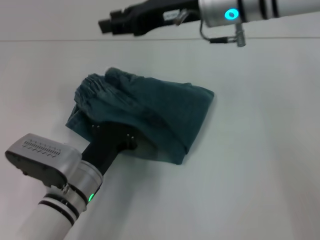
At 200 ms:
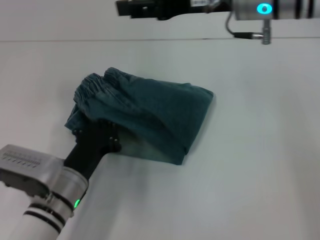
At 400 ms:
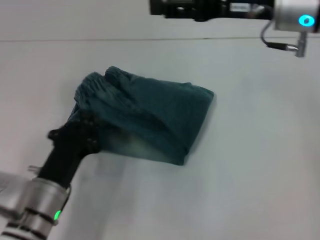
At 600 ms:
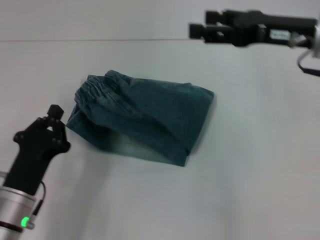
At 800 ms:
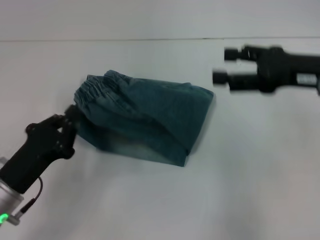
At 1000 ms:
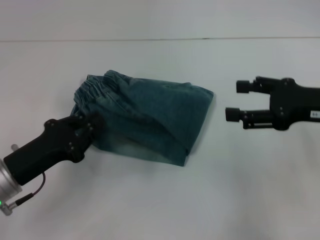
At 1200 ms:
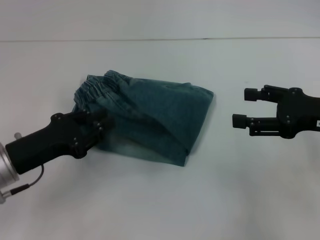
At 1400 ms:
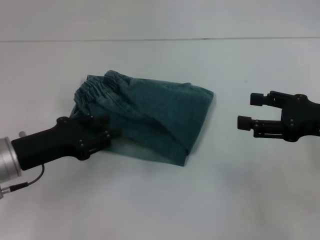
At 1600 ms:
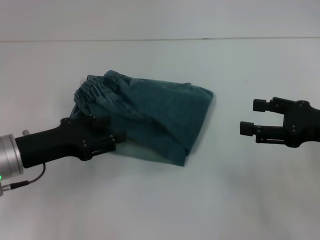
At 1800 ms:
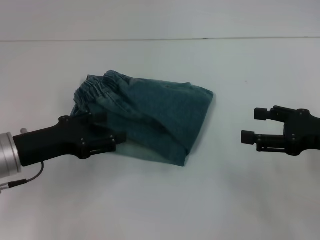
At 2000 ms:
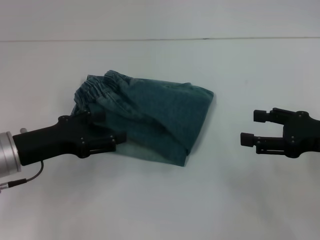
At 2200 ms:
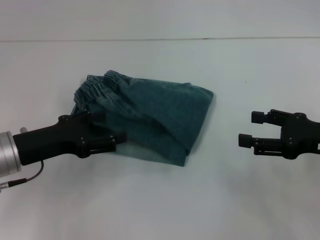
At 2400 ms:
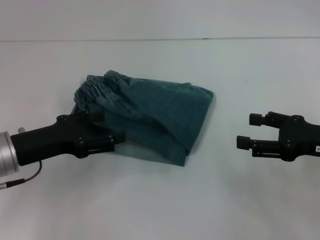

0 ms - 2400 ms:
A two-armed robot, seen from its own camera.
0 ms - 1200 ms: The right gripper travels to the right, backward and downward by some 25 cm, and opens its fingers, while the left gripper shifts some 15 cm to the left and upward.
1200 ms - 2400 ms: The left gripper opens its fingers.
